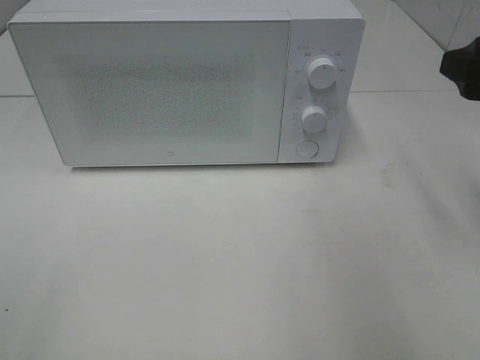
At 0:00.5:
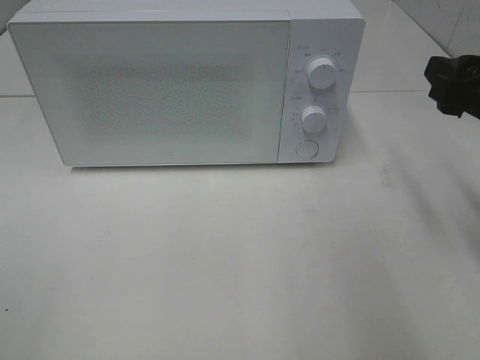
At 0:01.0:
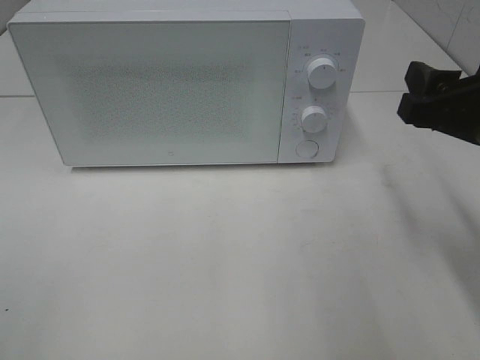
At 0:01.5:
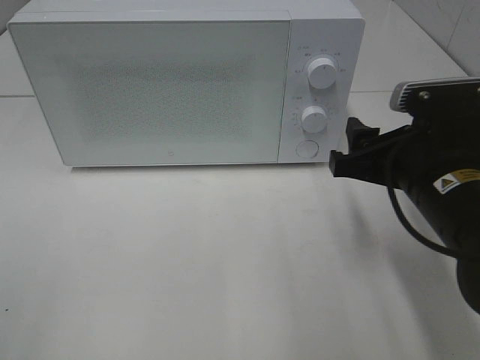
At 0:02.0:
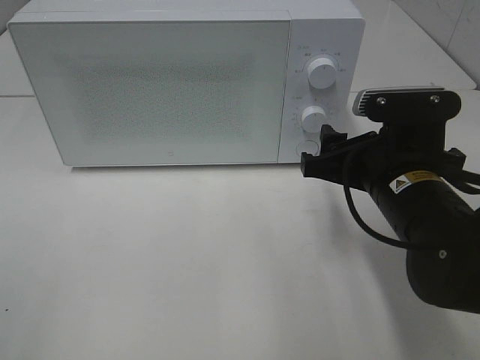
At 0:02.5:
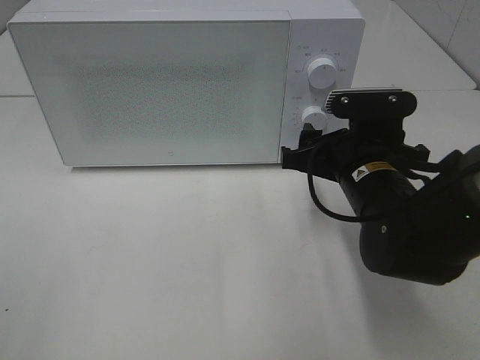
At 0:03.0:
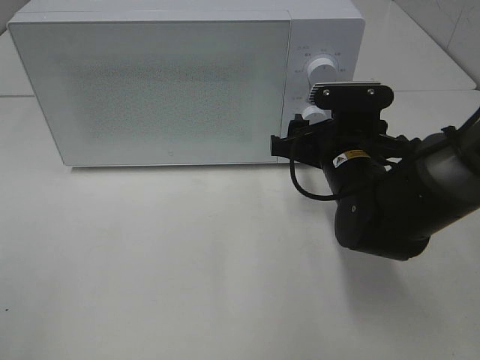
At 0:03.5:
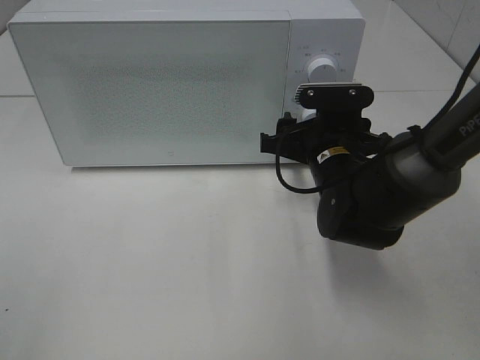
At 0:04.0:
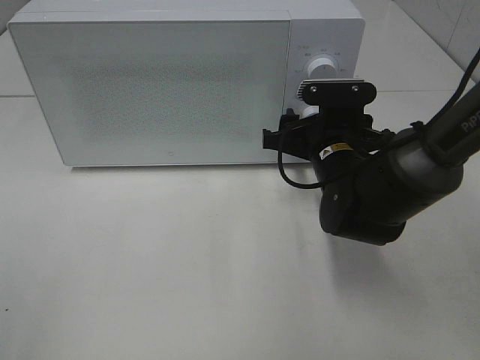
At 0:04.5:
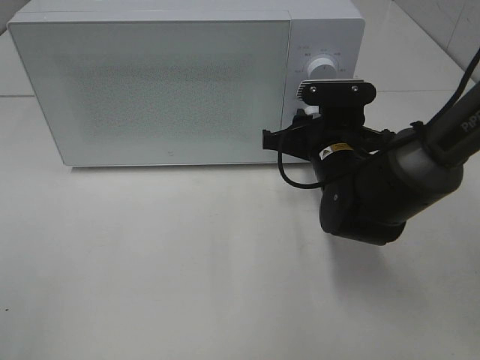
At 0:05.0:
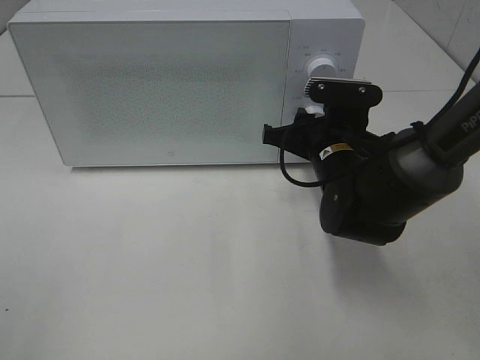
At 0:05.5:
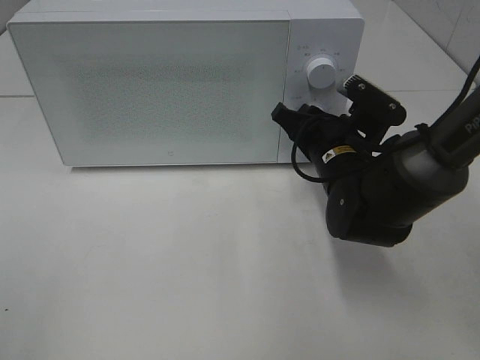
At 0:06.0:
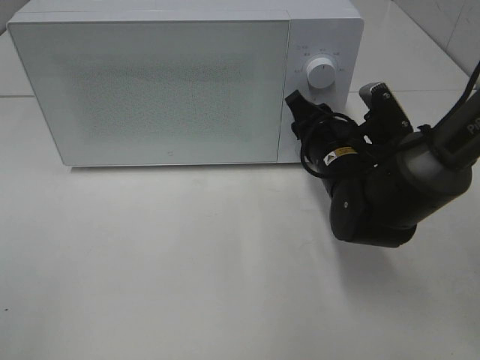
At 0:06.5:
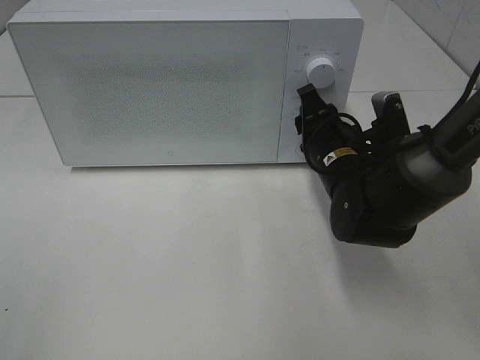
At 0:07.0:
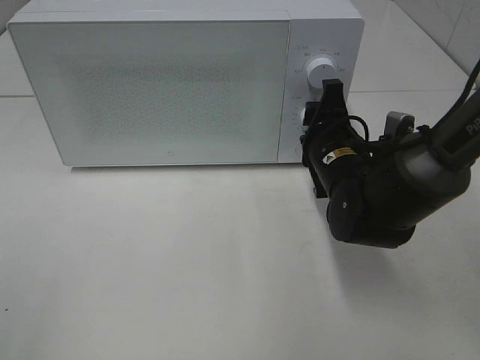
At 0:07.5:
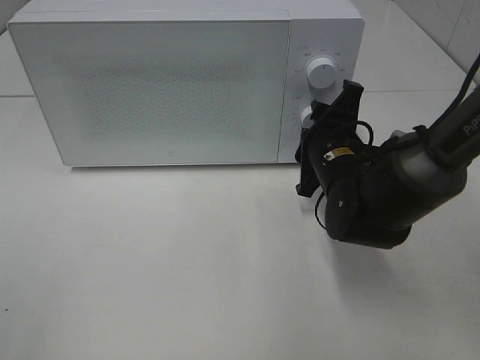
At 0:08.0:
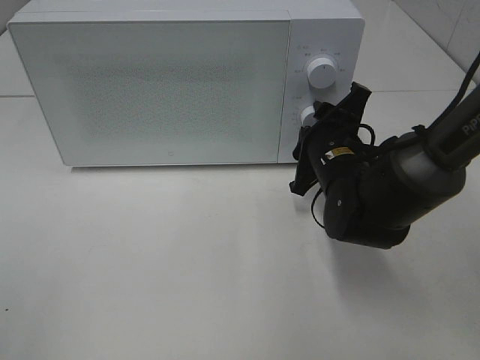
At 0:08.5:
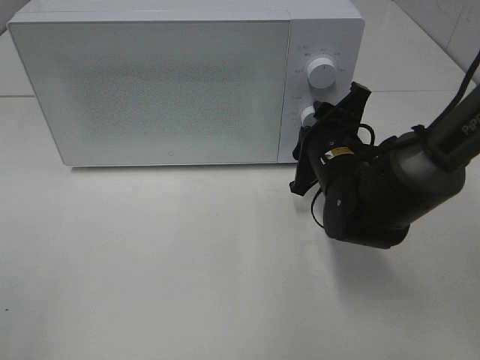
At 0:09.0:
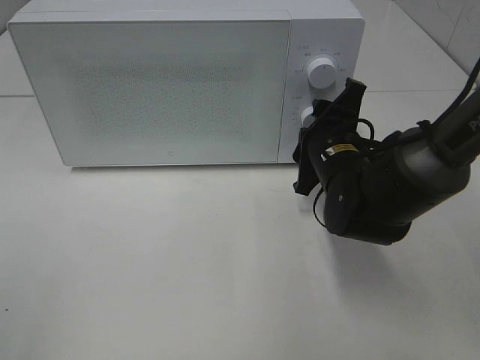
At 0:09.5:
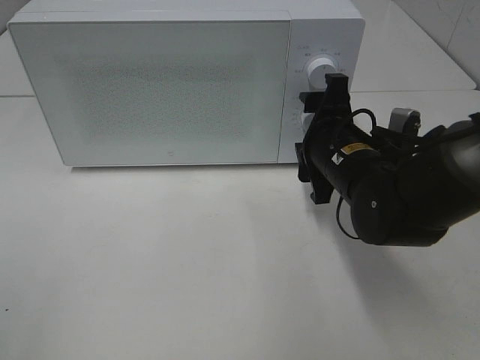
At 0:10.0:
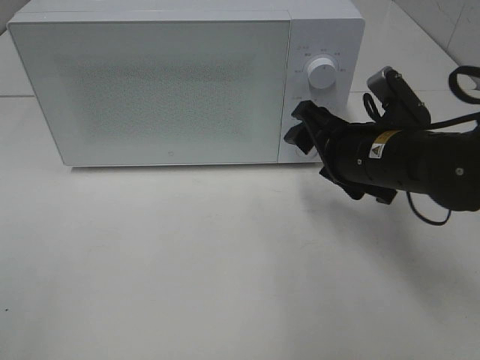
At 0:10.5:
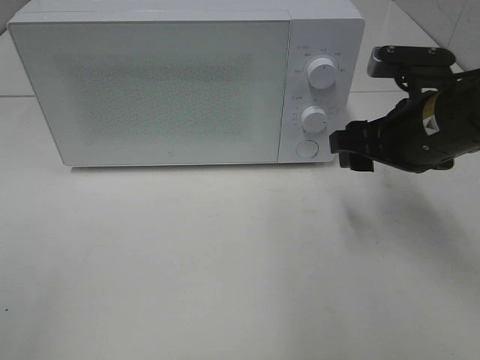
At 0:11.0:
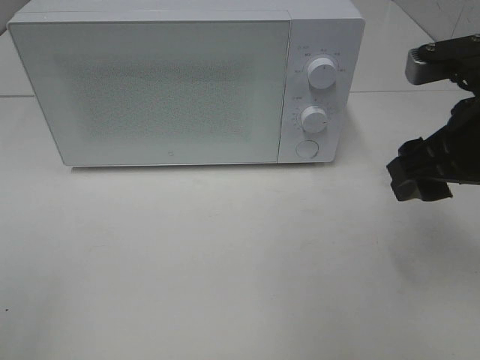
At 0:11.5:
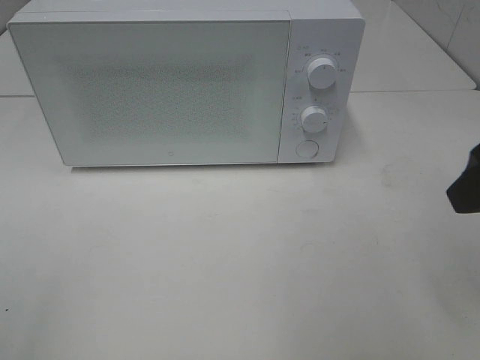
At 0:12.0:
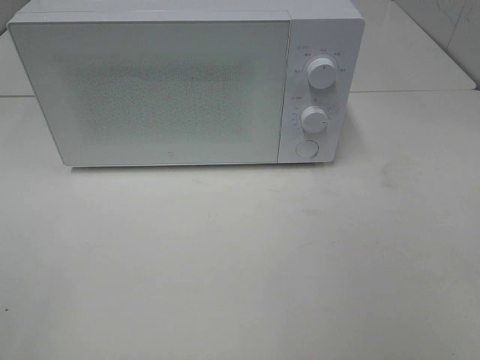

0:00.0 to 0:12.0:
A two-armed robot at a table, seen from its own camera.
Task of the whole recording: Heat the burger.
Step, 0:00.0 to 0:09.0: Right hand: twist timer button.
0:00.0 to 0:02.0: The right gripper goes about 15 cm downward and to the left.
0:02.0 to 0:04.0: The right gripper shifts some 10 cm forward.
0:08.0 to 0:10.0: The right gripper changes place by approximately 5 cm.
0:10.0 to 0:12.0: The right gripper moves backward, upward and to the right, approximately 30 cm.

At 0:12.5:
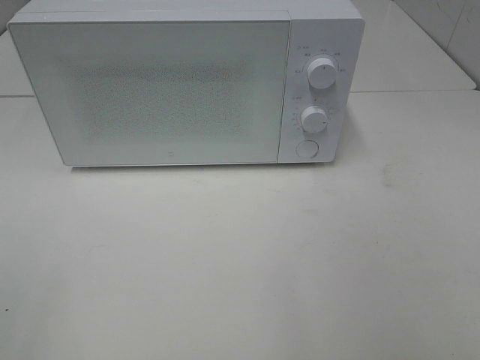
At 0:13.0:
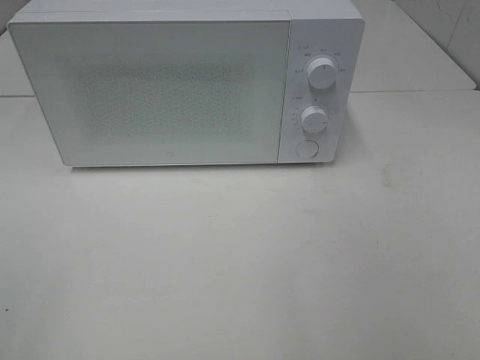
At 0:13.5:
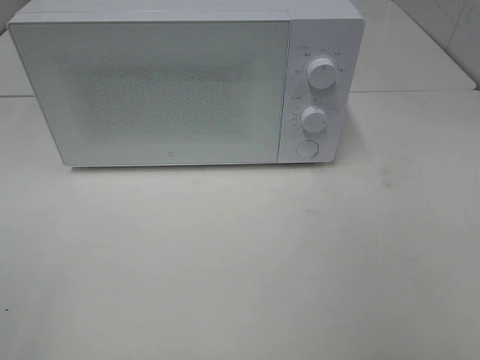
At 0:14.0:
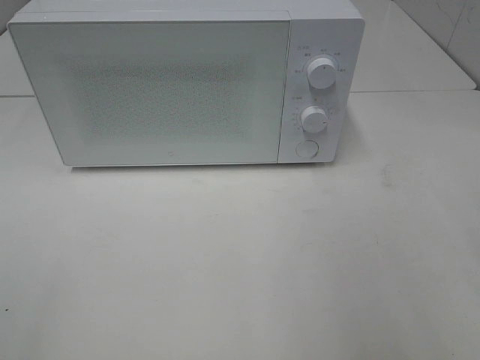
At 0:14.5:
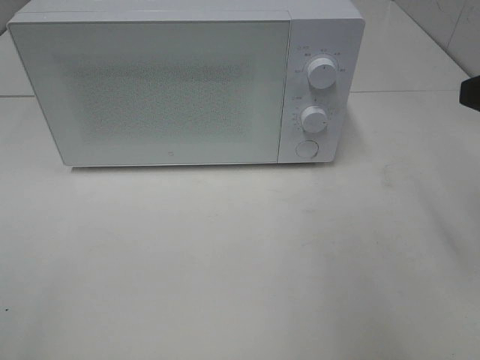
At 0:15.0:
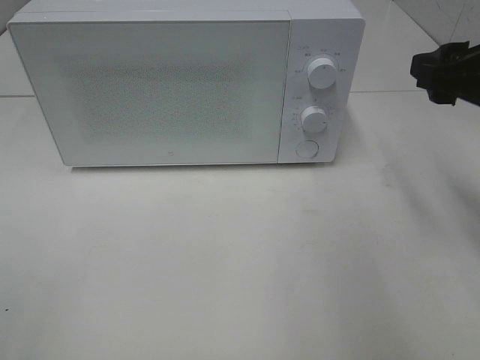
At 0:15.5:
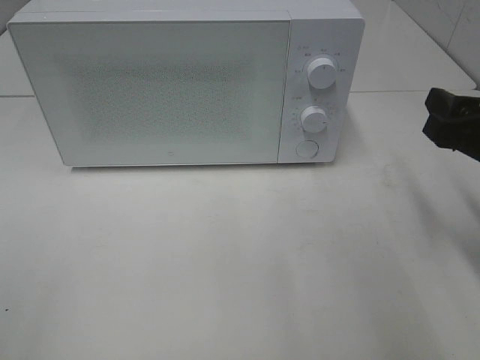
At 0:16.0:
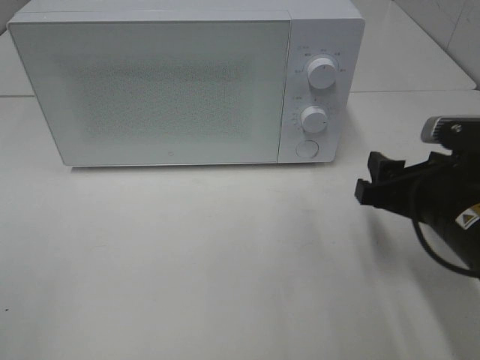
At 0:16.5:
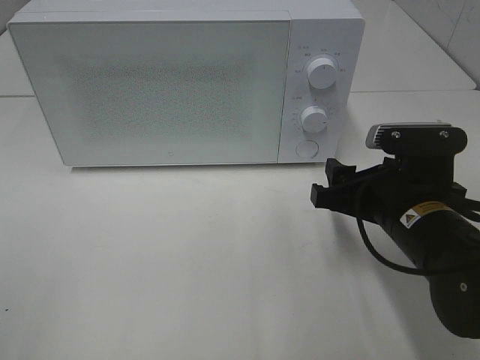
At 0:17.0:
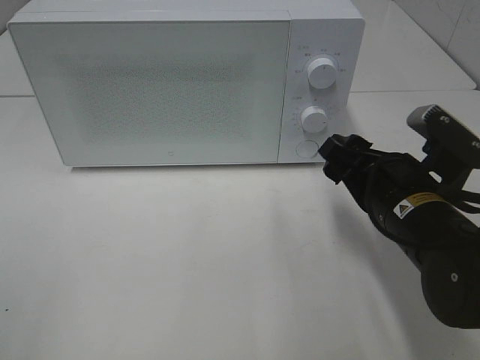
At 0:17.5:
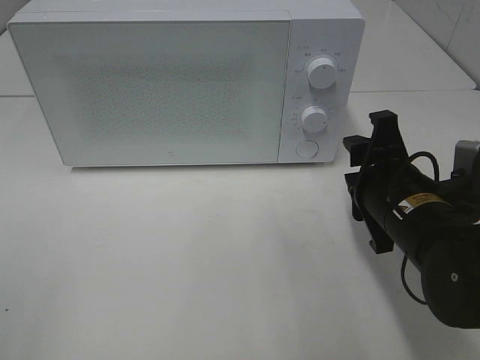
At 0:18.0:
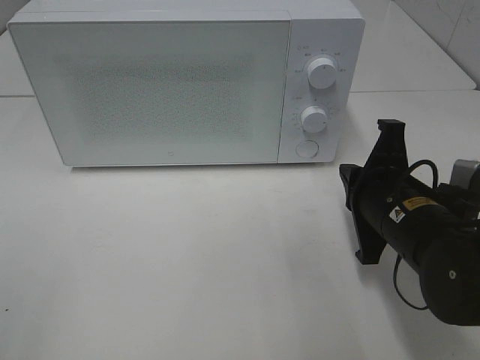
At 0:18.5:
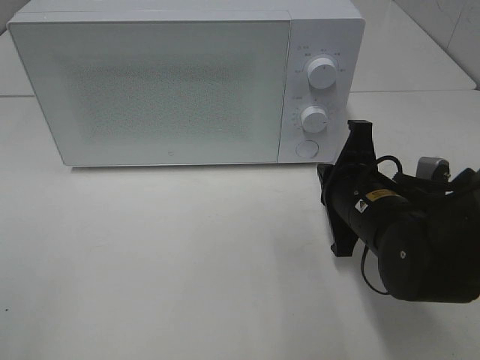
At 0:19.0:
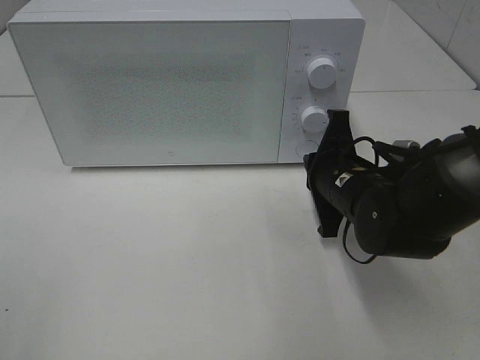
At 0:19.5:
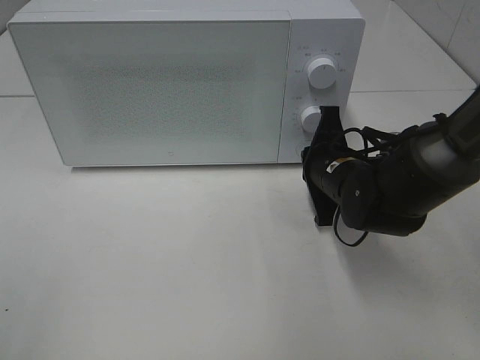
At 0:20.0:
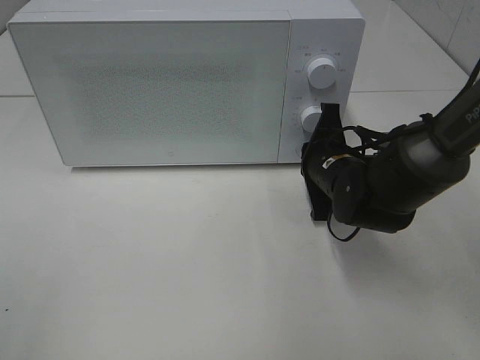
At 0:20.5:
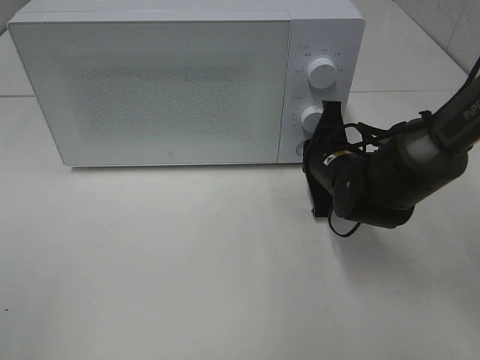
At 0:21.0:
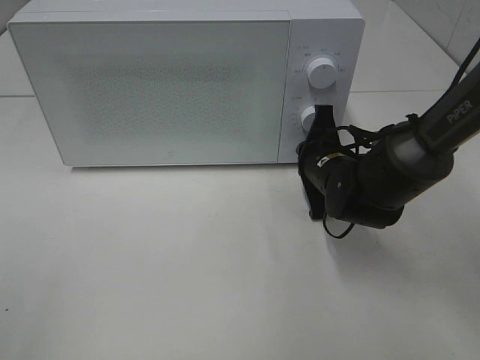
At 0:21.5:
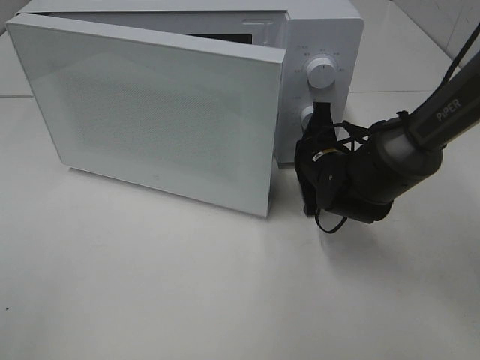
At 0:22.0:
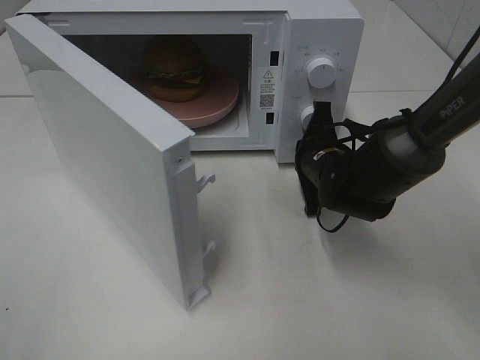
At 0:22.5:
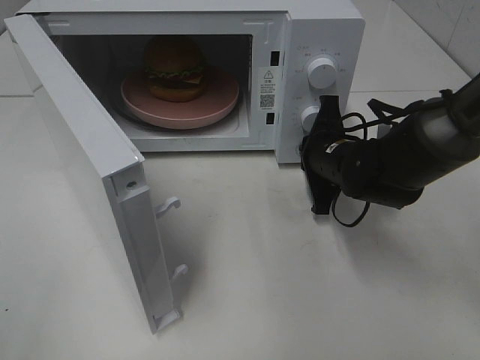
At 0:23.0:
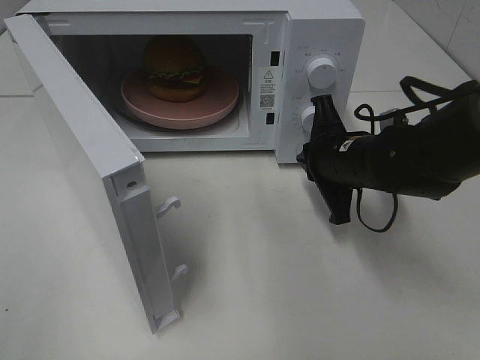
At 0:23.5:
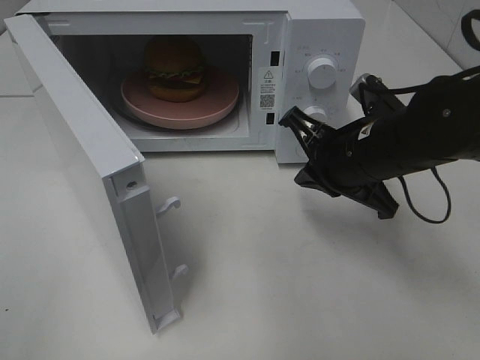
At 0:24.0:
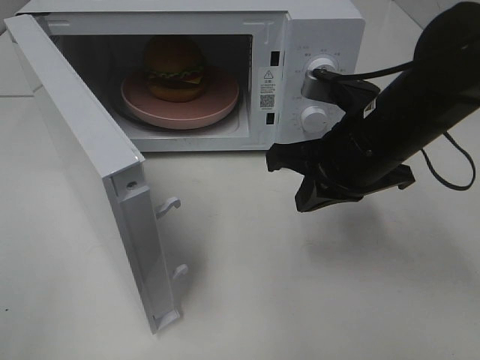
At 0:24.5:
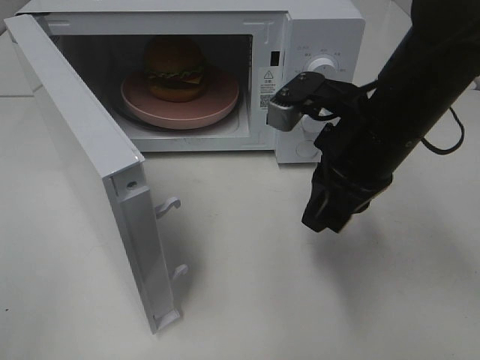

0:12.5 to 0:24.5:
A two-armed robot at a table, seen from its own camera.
Task of the whole recording: Heat the burger.
Step, 0:12.5 to 0:22.5: Right hand: press the switch.
0:14.5 to 0:16.5: The right gripper heads downward and to the left, covering about 20 cm.
0:16.5 to 0:18.5: The right gripper closes.
0:18.5 to 0:20.5: The right gripper is displaced forward by some 10 cm.
0:22.5 to 0:24.5: The right gripper goes some 15 cm upward and backward.

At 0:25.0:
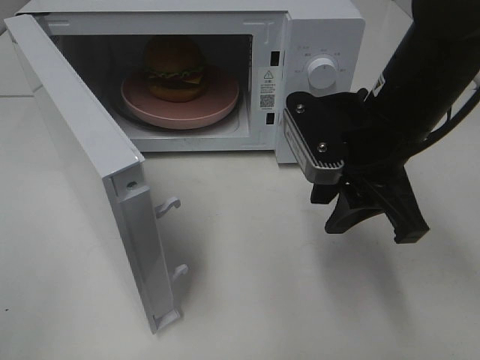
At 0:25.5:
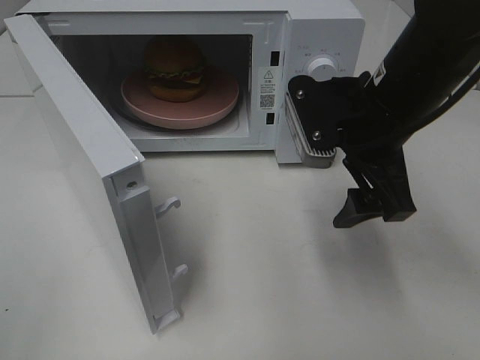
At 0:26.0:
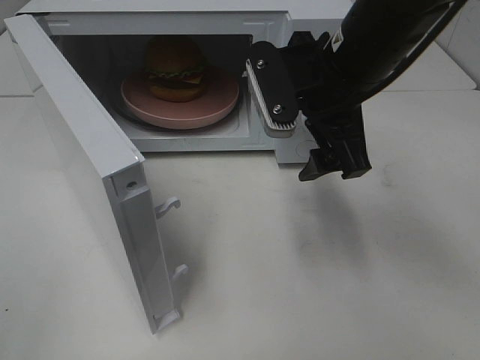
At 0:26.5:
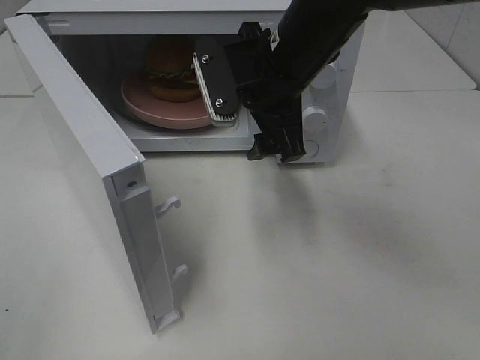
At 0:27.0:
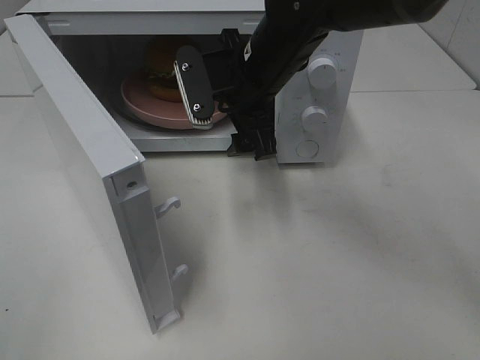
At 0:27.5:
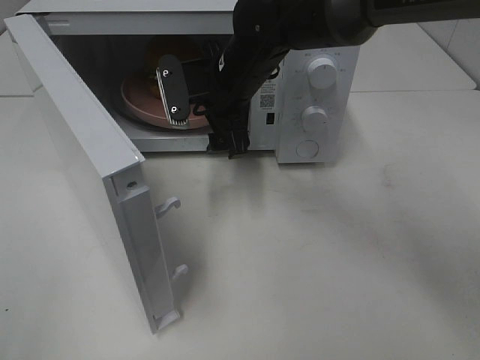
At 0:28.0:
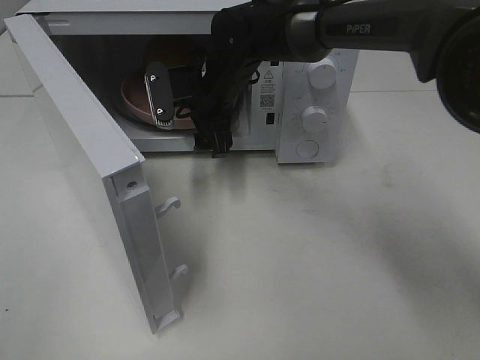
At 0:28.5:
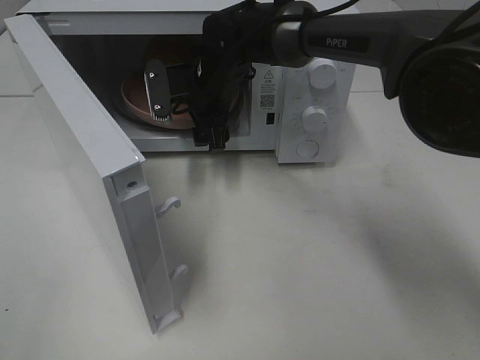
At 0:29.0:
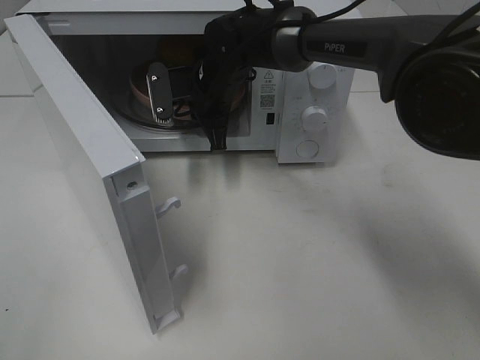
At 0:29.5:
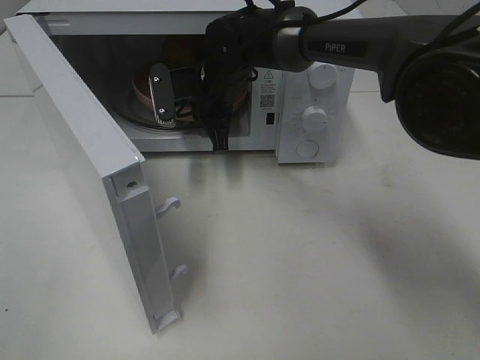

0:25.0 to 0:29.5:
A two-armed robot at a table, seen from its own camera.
Task of the whole recording: Heat the burger.
Step, 0:25.0 to 0:29.0: Right hand: grab the plate with the hamburger.
0:25.0 to 0:27.0: The right gripper moves to the left and forward, some 15 cm, and opens up.
0:27.0 to 0:29.5: The right gripper moves forward and downward, some 10 cm, and closes.
